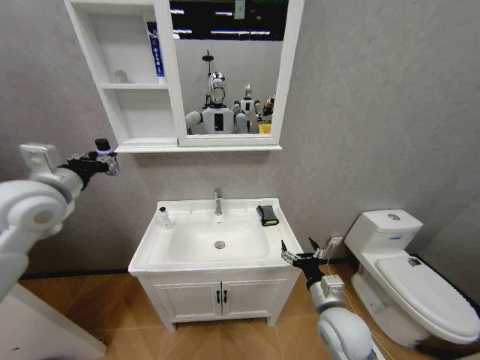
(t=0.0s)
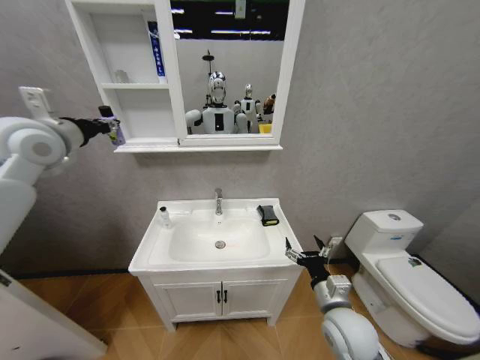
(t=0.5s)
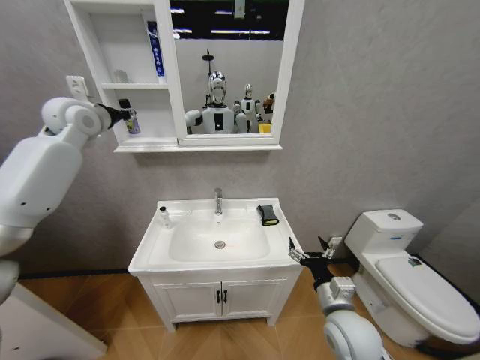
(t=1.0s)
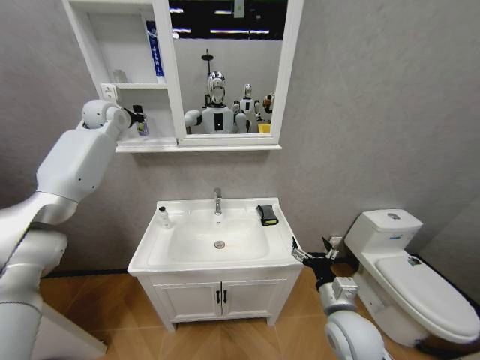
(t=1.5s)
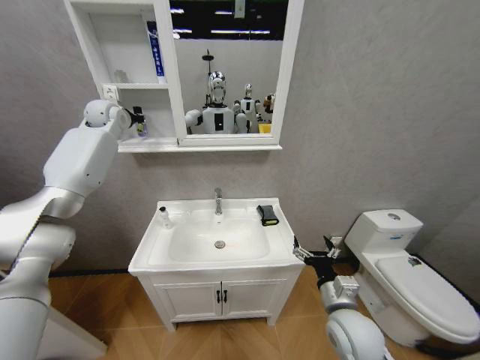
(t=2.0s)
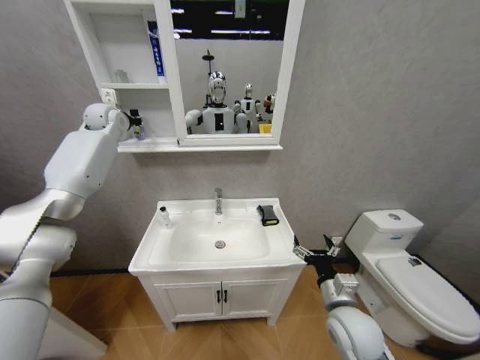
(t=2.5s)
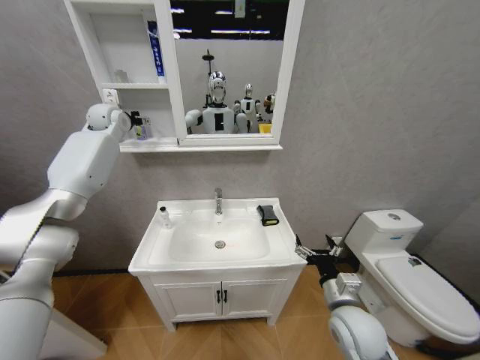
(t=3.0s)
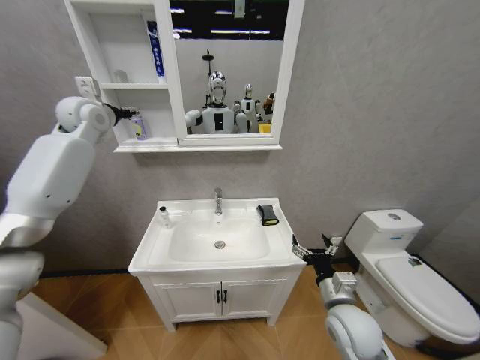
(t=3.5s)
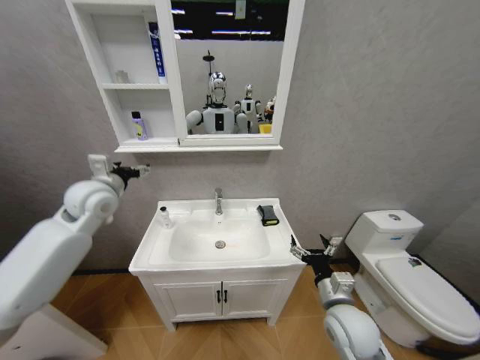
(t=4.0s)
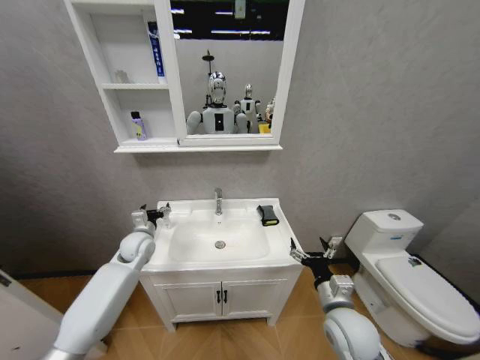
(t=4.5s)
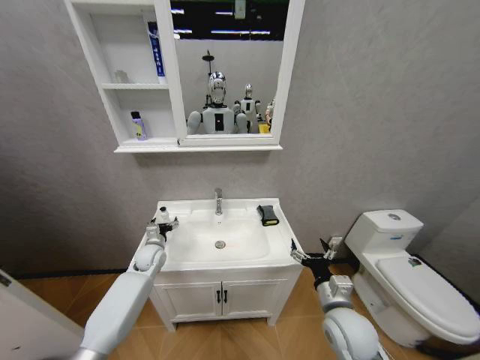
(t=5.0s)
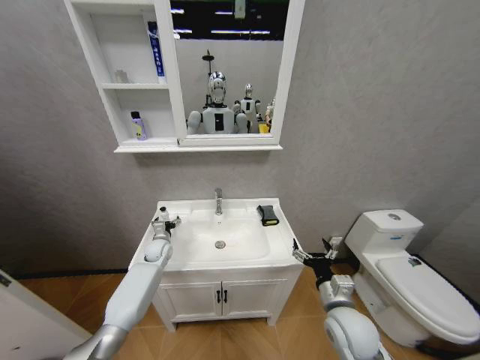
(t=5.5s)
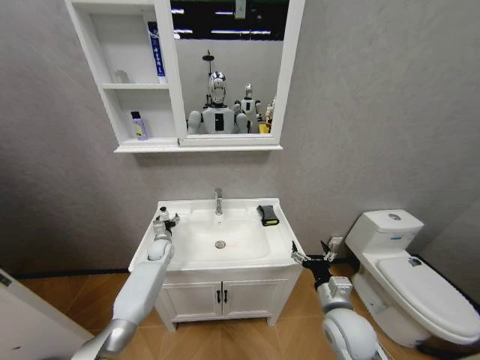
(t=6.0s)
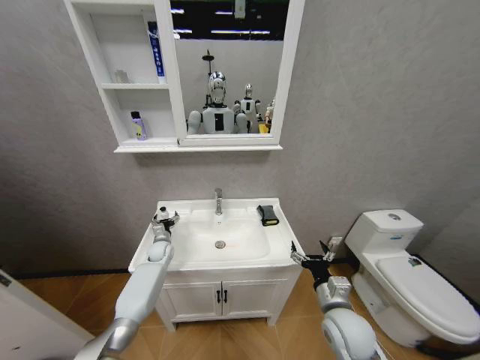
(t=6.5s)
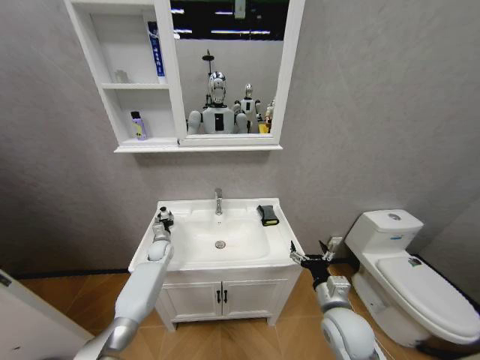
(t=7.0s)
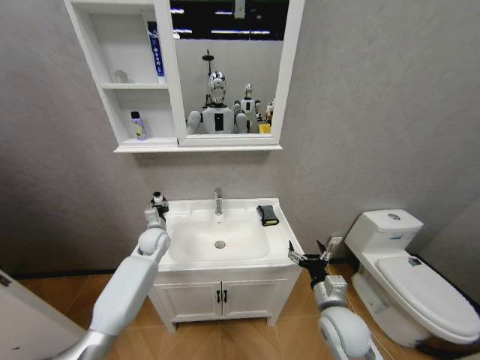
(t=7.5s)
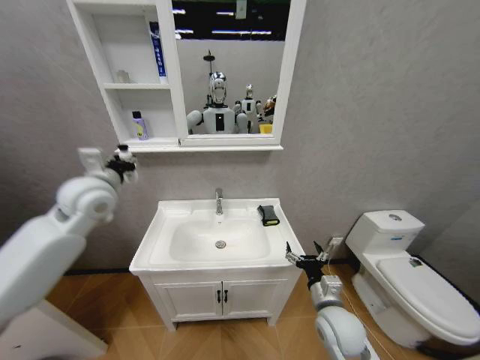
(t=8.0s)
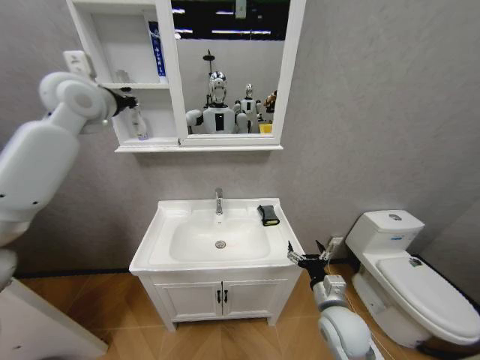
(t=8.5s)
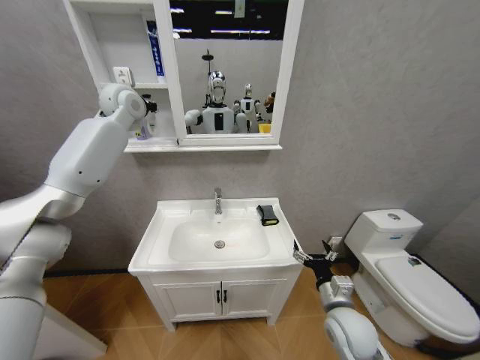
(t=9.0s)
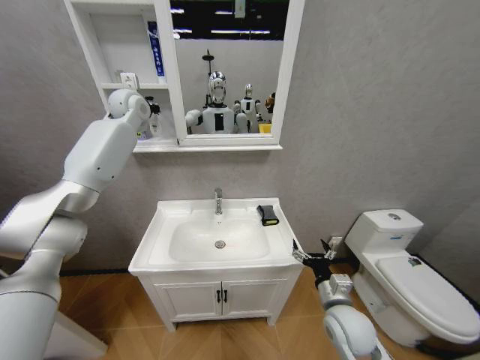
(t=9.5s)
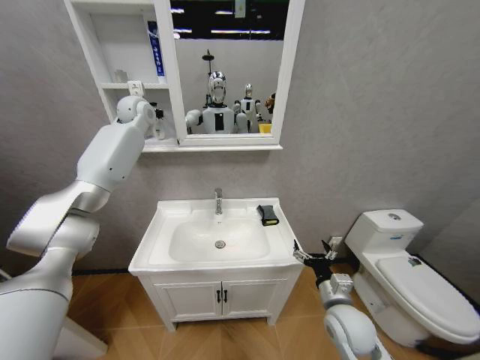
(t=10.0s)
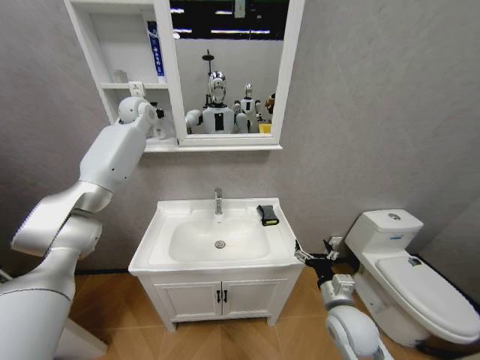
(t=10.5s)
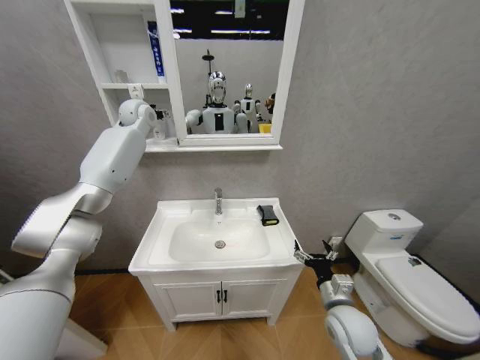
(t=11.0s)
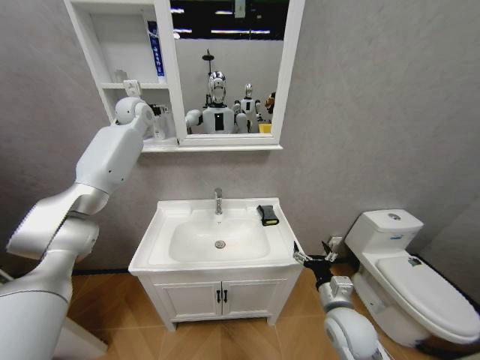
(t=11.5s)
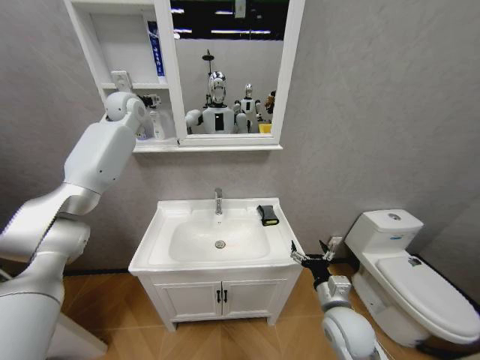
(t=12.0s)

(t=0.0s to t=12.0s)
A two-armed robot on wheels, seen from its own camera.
Task of the whole recording: Move facial cleanser and shampoo from washbasin to cabinet, then wipe washbasin with towel.
t=0.0s - t=2.0s: The left gripper travels forward by about 30 cm.
t=2.0s - t=4.0s: The left gripper moves backward and downward, some 25 cm, and opens.
t=4.0s - t=6.0s: The left gripper is displaced downward by roughly 35 cm.
t=6.0s - t=8.0s: The left gripper shifts about 35 cm upward, and closes up.
t=8.0s - t=10.0s: The left gripper goes approximately 30 cm forward and upward.
t=10.0s - t=12.0s: The left gripper opens.

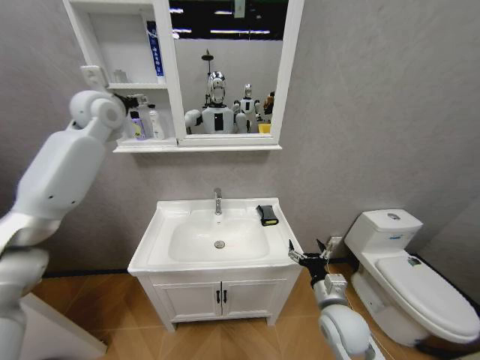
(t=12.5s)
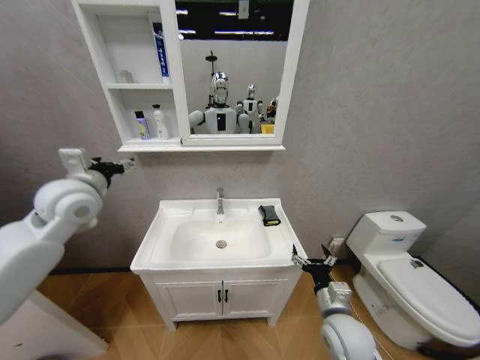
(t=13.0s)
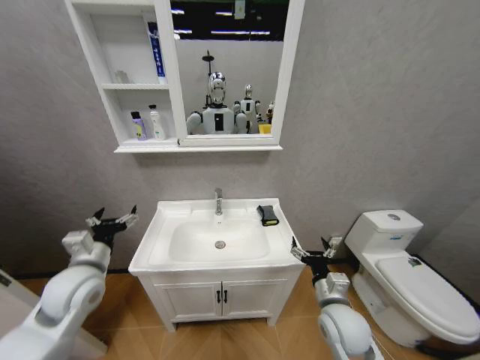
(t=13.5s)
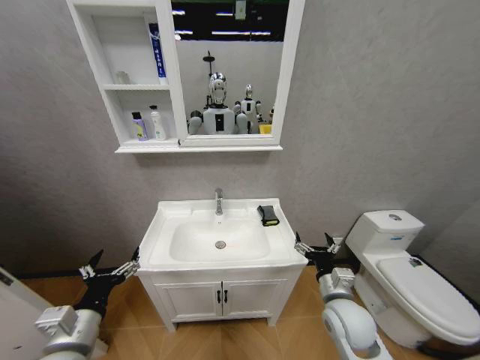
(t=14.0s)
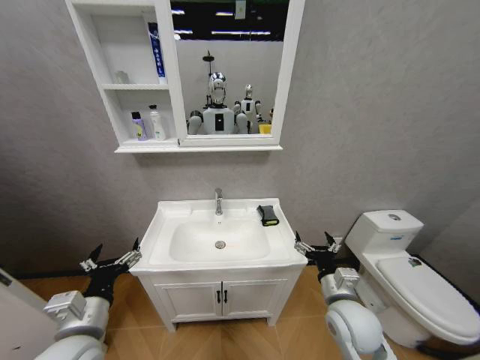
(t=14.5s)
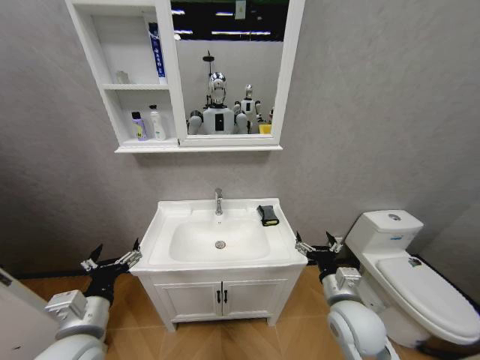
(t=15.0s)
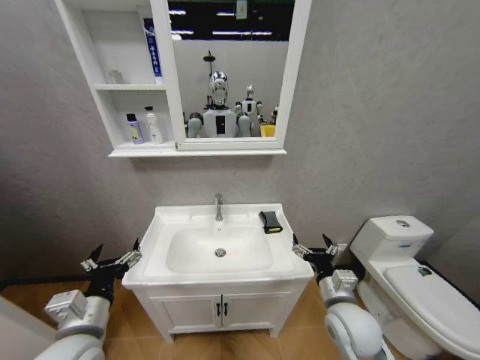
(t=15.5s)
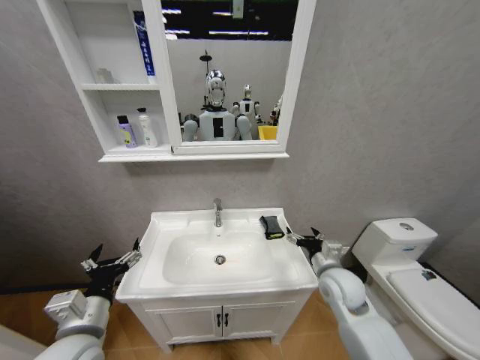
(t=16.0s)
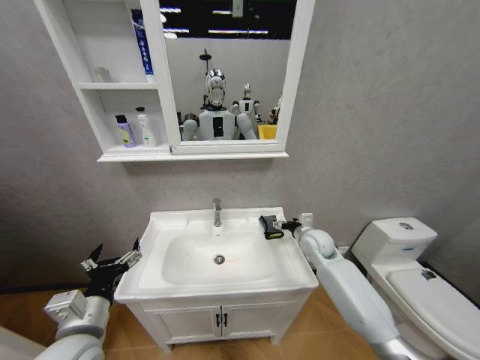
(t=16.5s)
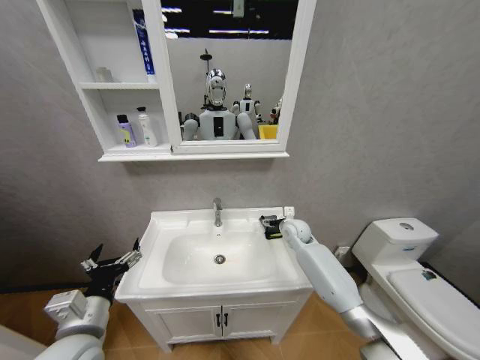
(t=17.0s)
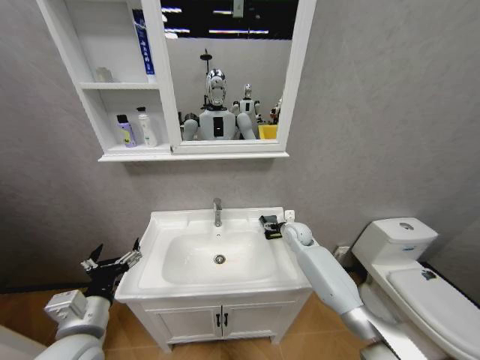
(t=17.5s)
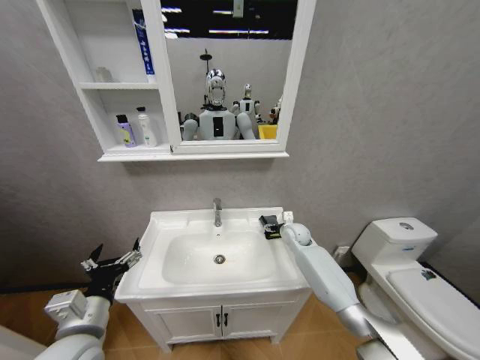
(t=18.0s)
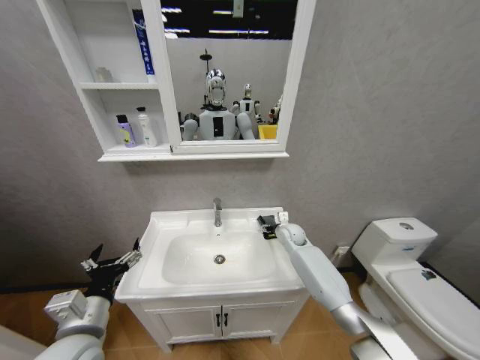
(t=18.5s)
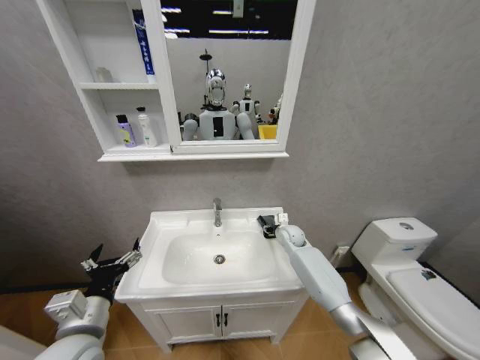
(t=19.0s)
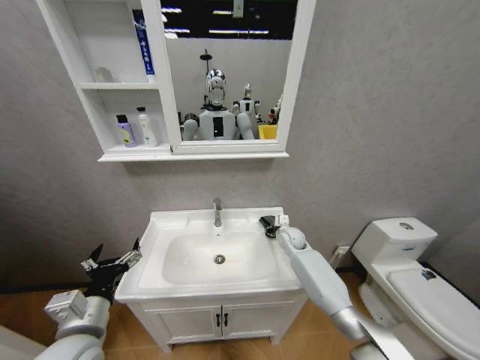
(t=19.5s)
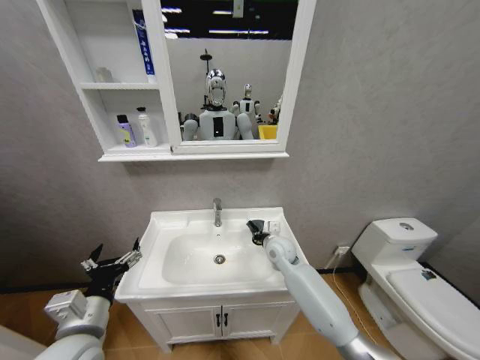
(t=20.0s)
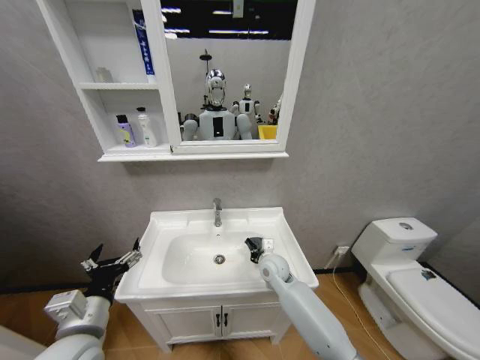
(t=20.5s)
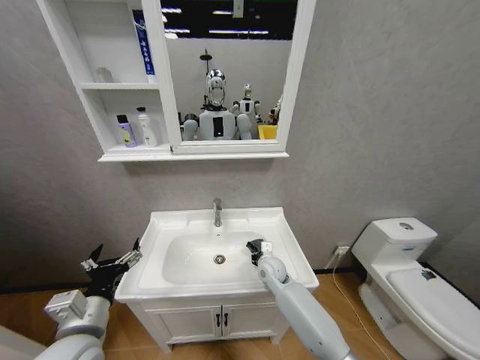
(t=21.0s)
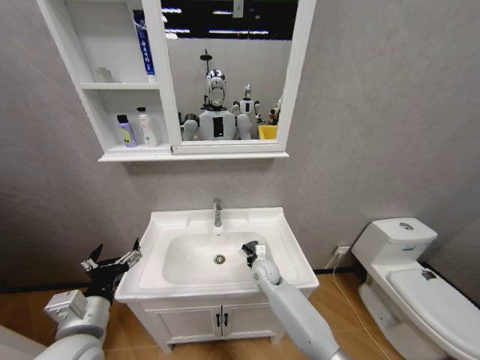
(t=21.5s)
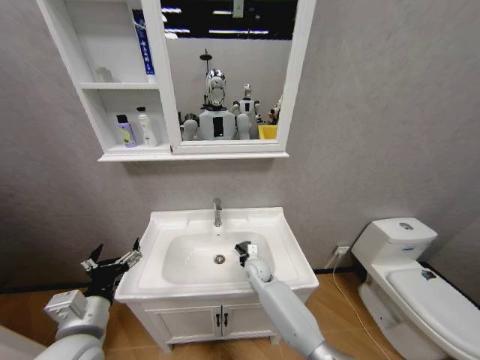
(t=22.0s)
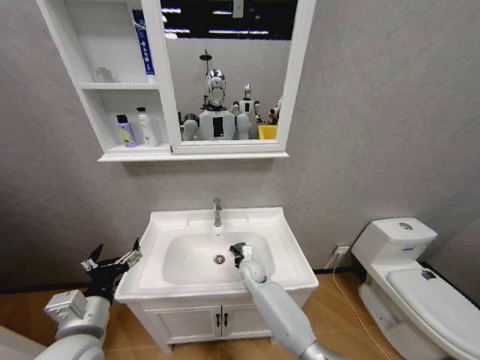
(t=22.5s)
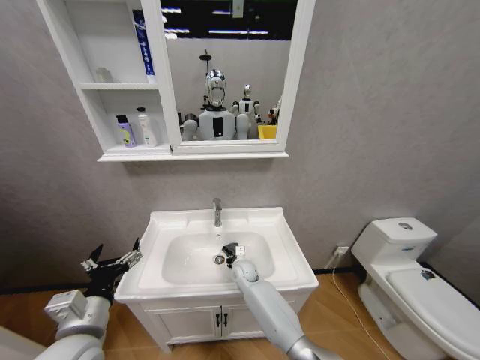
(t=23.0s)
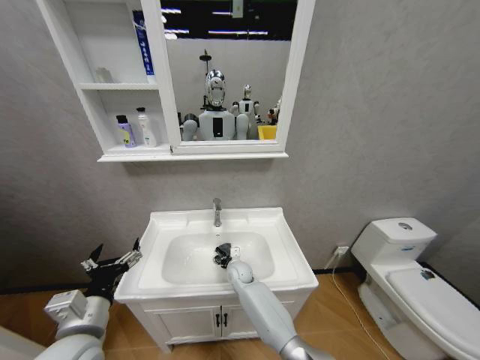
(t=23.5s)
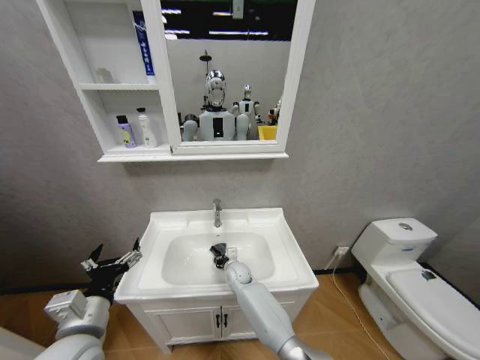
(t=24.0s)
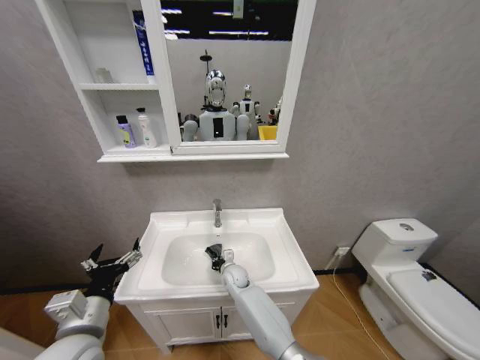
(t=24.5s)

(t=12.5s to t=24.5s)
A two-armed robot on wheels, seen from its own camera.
Task of the whole recording: Move facial cleanser and shampoo from washbasin to cabinet, then wipe washbasin with towel.
t=12.5s - t=14.5s: The left gripper shifts some 50 cm backward and downward.
t=14.5s - t=16.5s: The right gripper is displaced forward by about 20 cm.
t=16.5s - t=18.5s: The right gripper moves forward and downward, approximately 10 cm.
t=18.5s - t=20.5s: The right gripper goes approximately 15 cm backward and to the left, and closes.
t=20.5s - t=22.5s: The right gripper moves downward and to the left, approximately 10 cm.
t=22.5s - t=24.5s: The right gripper travels to the left by some 5 cm.

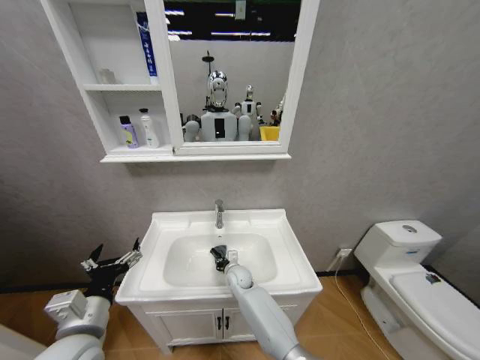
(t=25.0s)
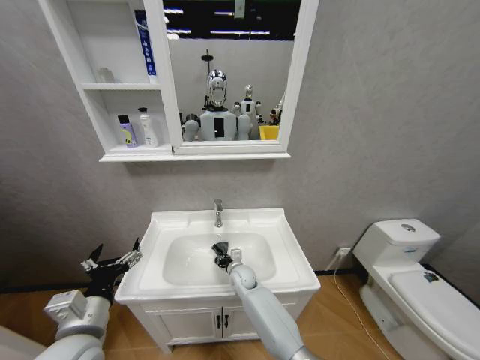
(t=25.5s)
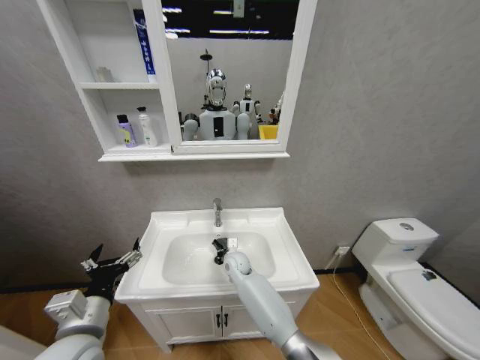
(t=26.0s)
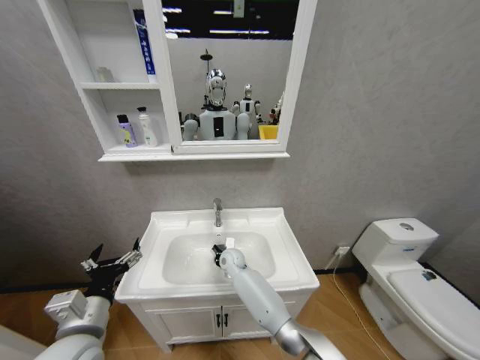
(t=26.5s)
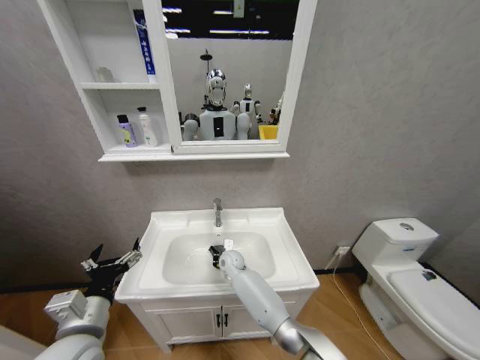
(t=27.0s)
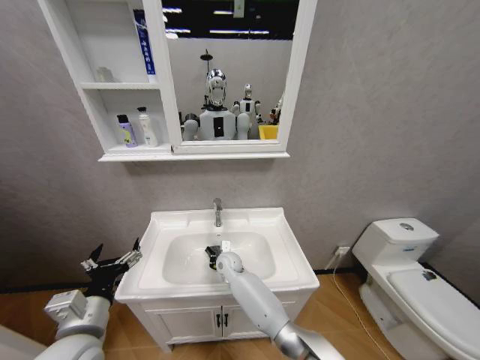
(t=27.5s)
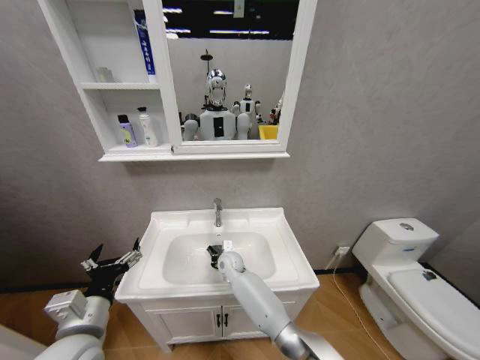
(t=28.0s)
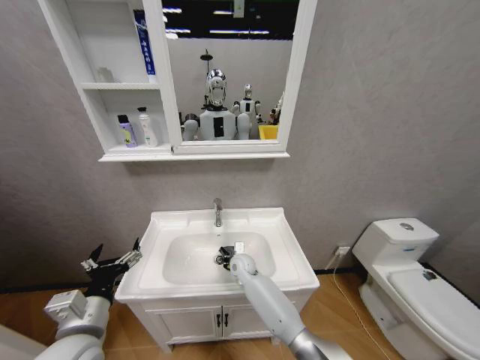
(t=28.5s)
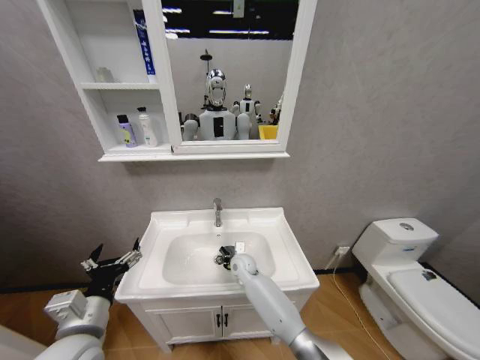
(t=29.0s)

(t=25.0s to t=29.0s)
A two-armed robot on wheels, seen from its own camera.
Task of the whole recording: Move facial cleanser and shampoo from washbasin to cabinet, then wipe washbasin with towel.
t=25.0s - t=27.0s: The right gripper shifts by roughly 5 cm.
